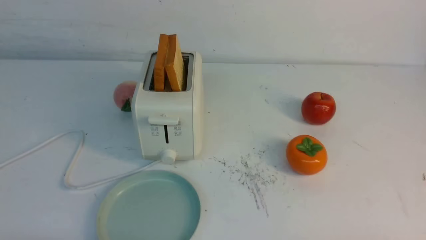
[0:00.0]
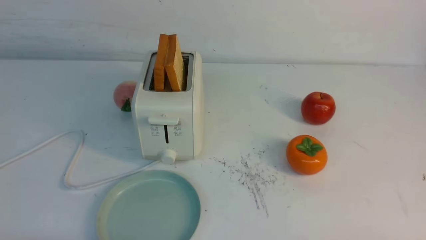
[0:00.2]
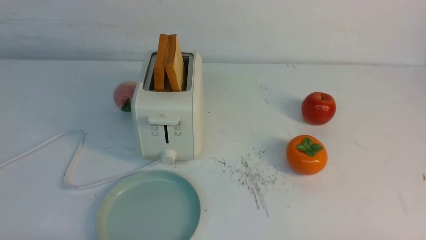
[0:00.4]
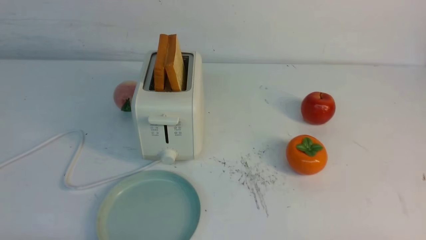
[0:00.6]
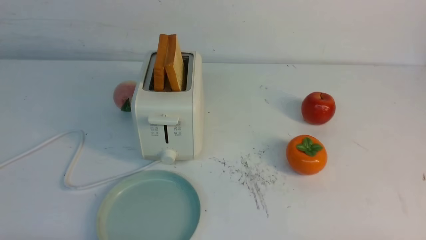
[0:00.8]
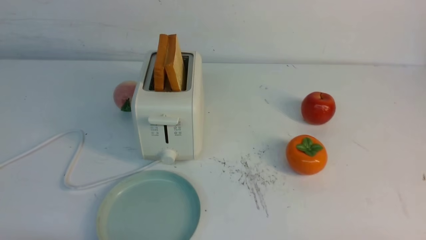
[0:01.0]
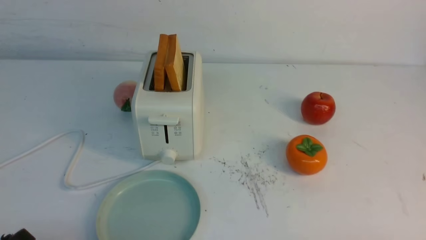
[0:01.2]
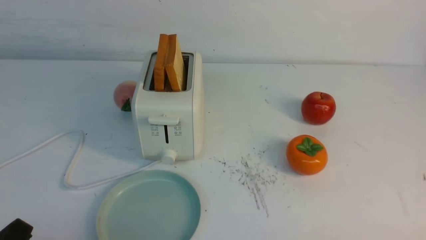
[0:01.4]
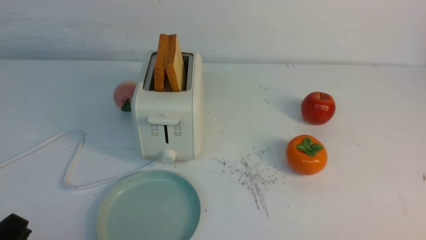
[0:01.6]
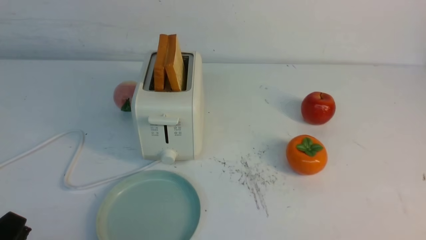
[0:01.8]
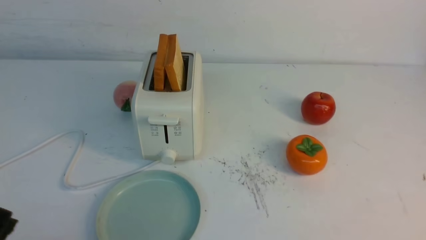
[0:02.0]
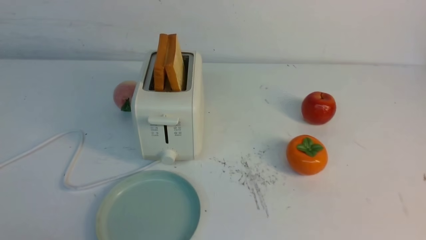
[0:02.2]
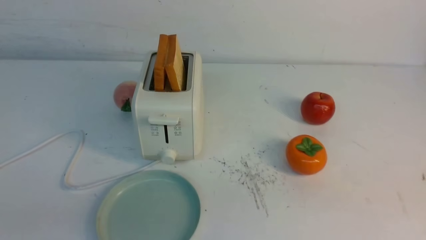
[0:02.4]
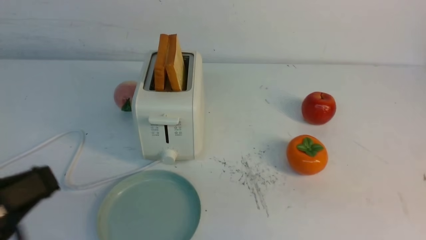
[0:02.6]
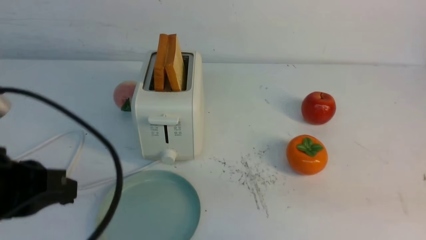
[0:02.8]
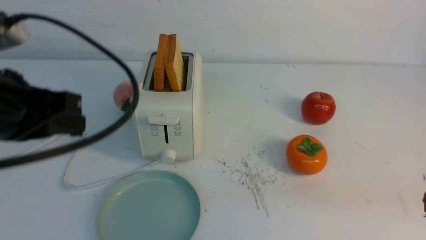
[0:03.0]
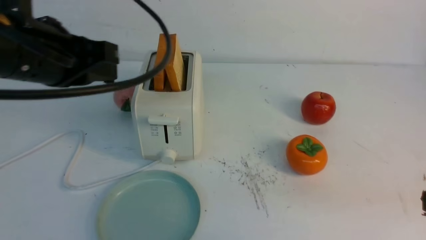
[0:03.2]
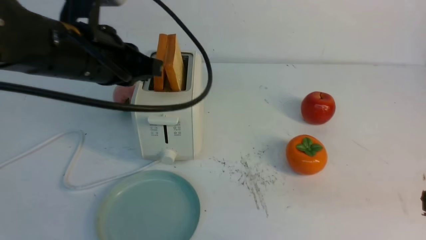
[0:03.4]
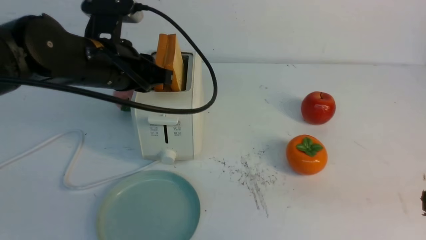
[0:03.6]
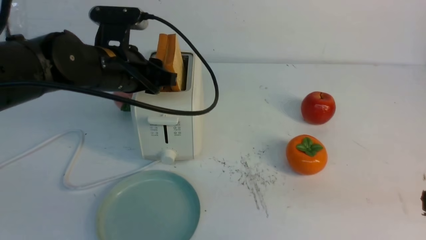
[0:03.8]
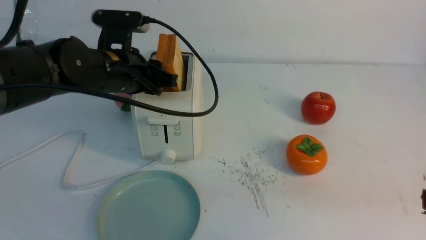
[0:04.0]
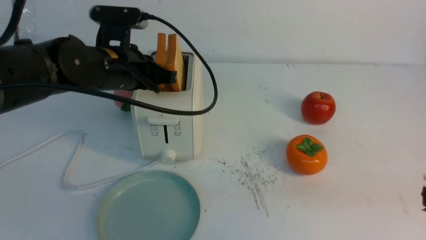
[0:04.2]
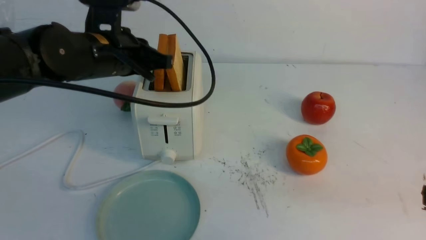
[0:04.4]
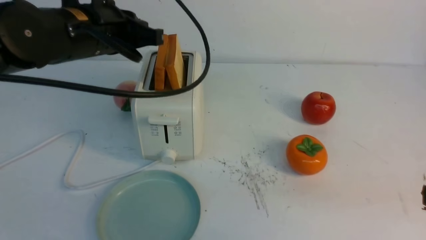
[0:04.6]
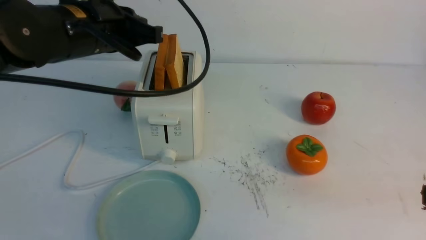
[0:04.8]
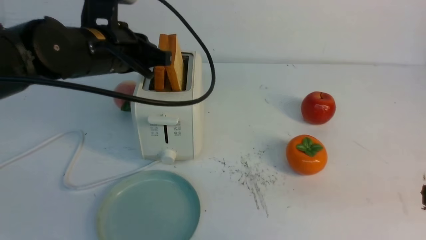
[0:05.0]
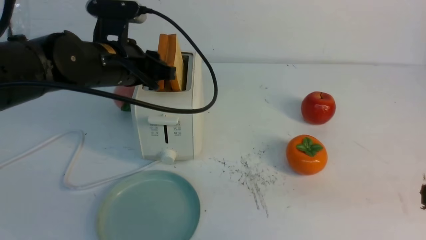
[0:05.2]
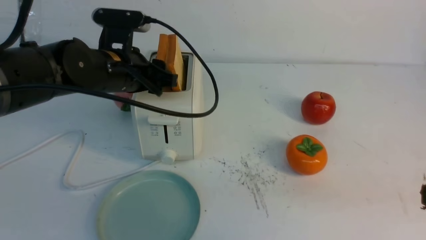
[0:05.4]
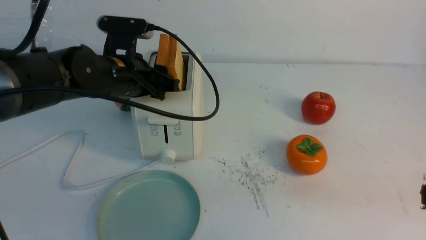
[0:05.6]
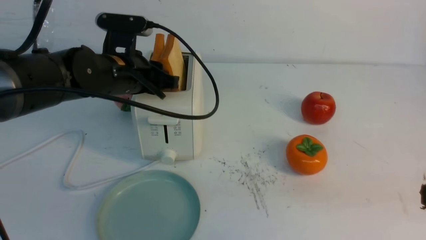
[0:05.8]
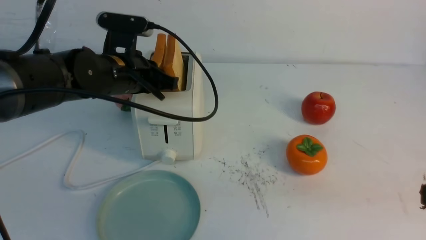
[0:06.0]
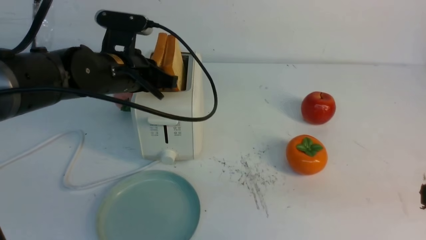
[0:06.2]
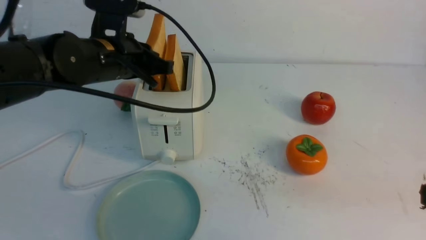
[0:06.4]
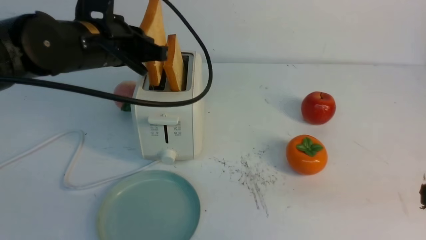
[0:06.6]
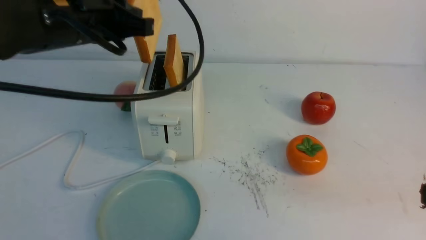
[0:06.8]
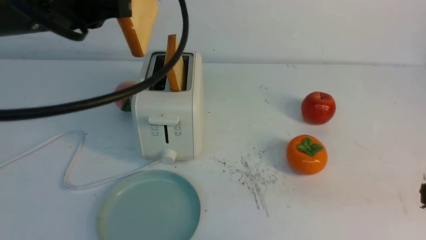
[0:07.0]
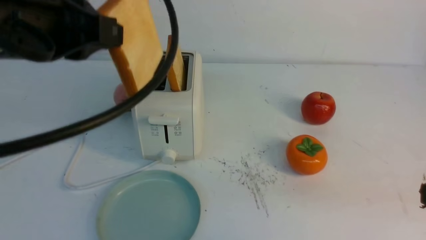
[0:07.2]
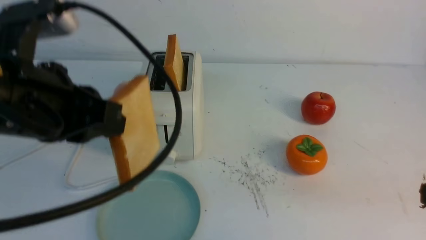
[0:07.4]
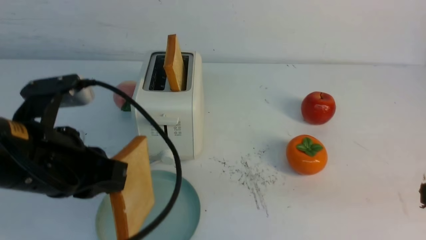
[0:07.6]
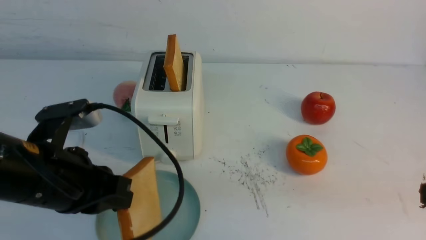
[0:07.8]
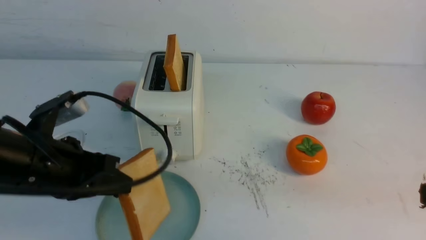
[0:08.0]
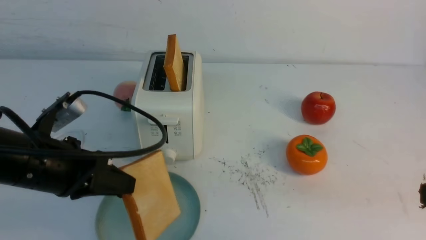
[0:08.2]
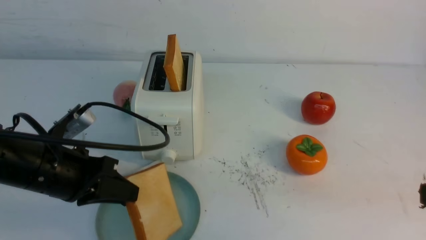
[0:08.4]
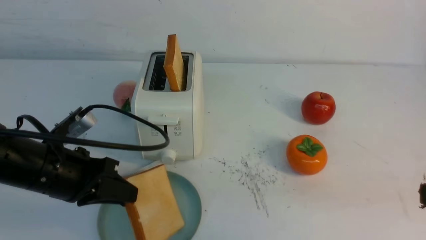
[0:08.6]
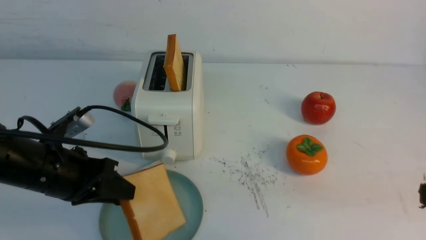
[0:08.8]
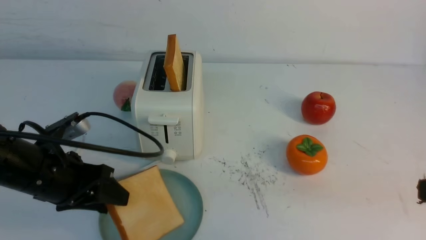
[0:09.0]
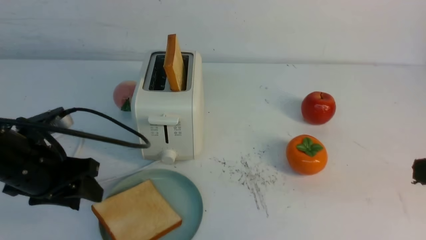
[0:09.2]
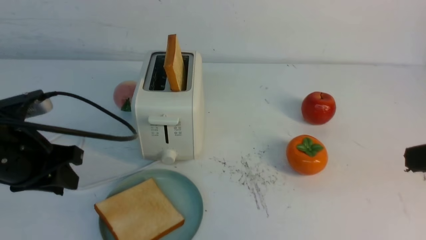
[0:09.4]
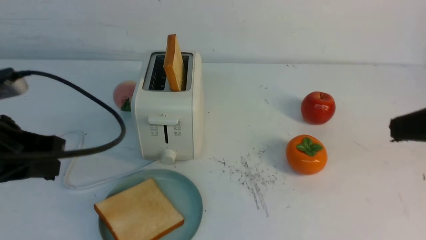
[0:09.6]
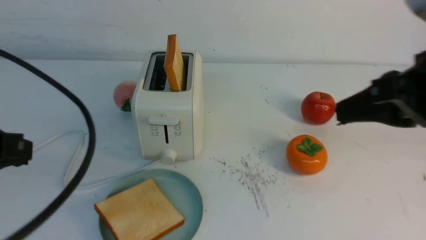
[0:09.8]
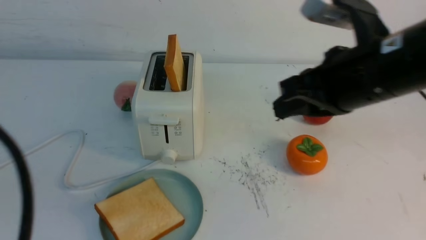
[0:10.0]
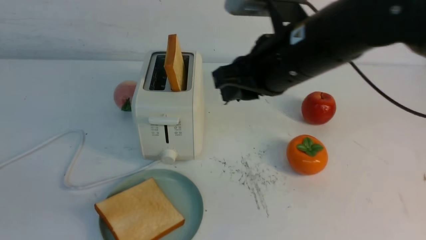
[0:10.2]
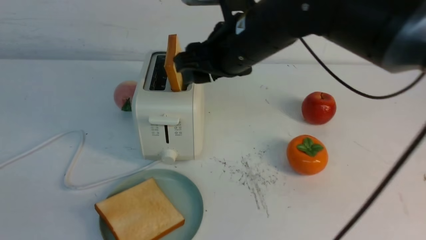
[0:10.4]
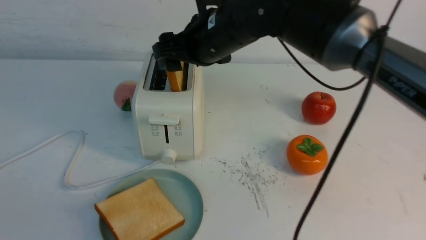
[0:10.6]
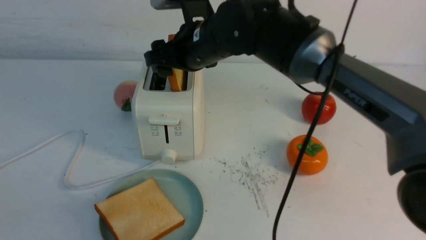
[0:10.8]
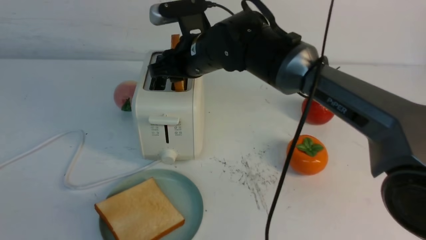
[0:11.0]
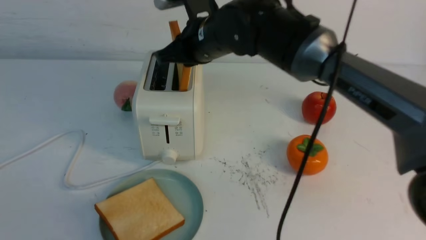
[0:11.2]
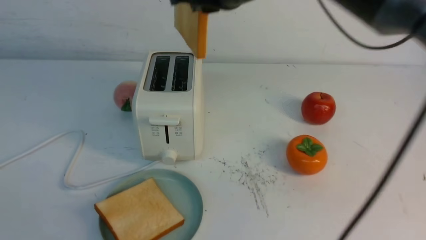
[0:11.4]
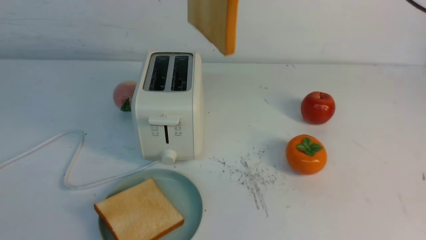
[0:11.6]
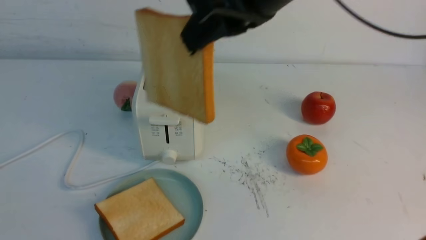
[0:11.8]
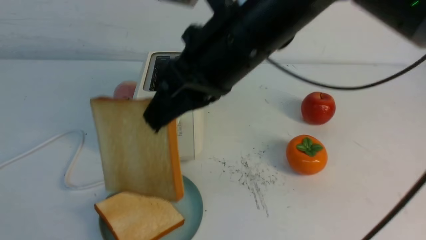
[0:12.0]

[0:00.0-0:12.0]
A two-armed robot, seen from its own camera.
Task of the whole recording: take toasted bread from bread machine on white table place on plate.
Step, 0:00.0 to 0:07.0: use the left arm to take out a slice of bread.
Step, 0:07.2 to 0:09.4: use the left arm to put a slice of bread into the empty plate.
Step, 0:09.6 to 0:11.2: use the right arm to take out a slice of bread.
0:01.6 to 0:03.0: The left gripper goes approximately 20 cm upward and forward, and closes its fingers.
0:03.0 to 0:04.4: The left gripper is displaced forward by approximately 20 cm, and opens, then closes again.
0:04.4 to 0:06.0: The left gripper opens up.
0:06.0 to 0:07.6: The left gripper goes roughly 20 cm backward.
0:07.6 to 0:09.0: The left gripper heads downward and forward, covering some 10 cm, and opens.
0:09.0 to 0:10.4: The left gripper heads backward and upward, covering about 30 cm, and closes its fingers; the right gripper goes roughly 30 cm to the left and forward, and opens its fingers.
0:10.4 to 0:12.0: The right gripper goes up and down, some 15 cm each way, reversing 2 times, and closes.

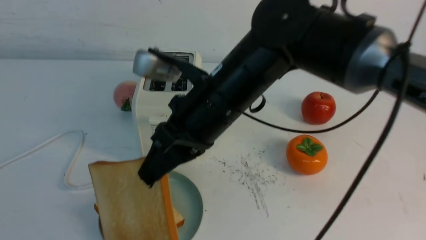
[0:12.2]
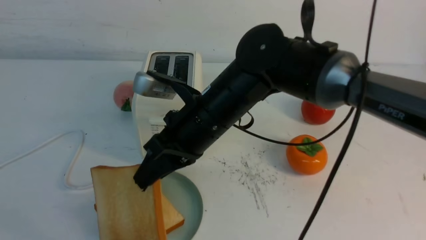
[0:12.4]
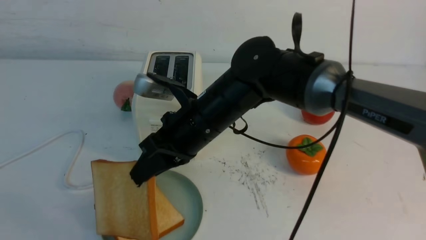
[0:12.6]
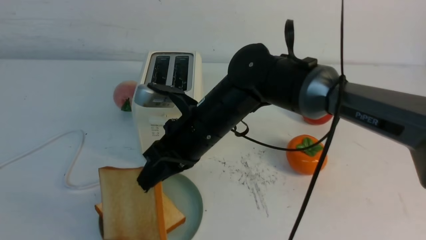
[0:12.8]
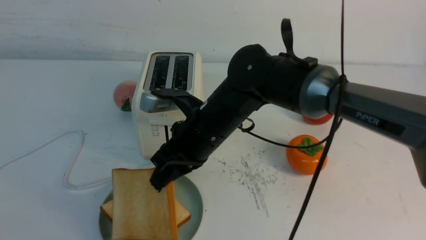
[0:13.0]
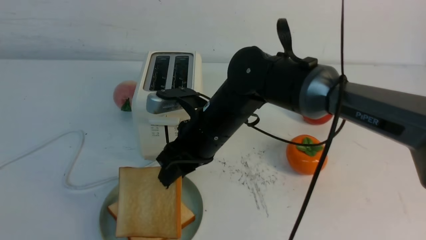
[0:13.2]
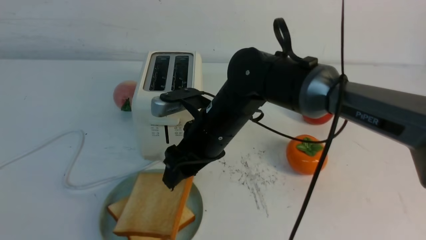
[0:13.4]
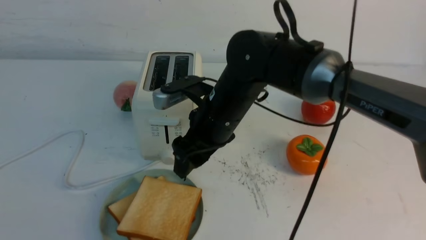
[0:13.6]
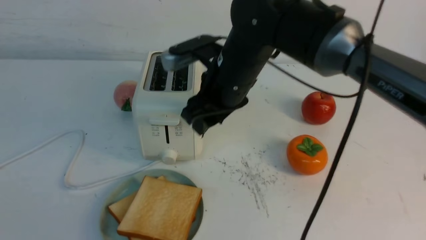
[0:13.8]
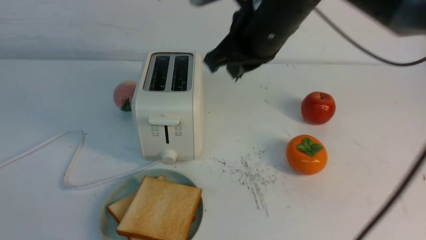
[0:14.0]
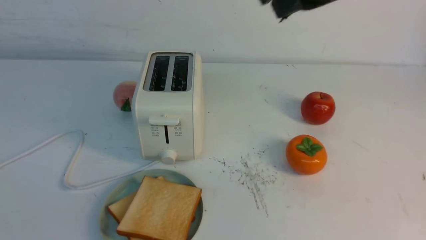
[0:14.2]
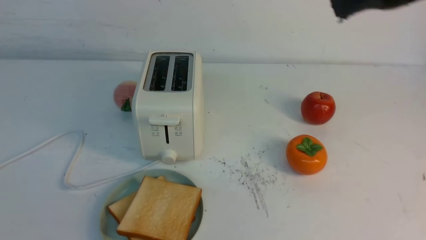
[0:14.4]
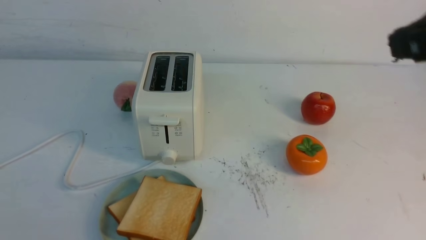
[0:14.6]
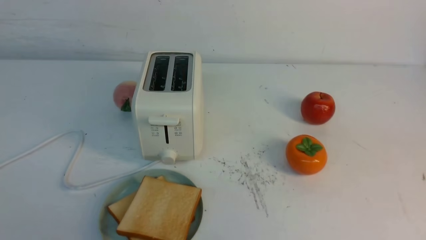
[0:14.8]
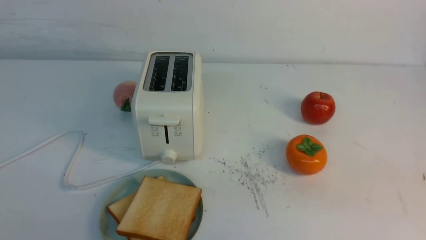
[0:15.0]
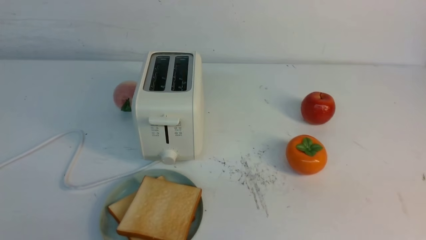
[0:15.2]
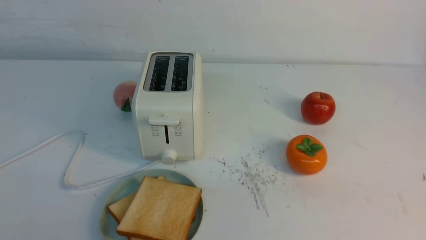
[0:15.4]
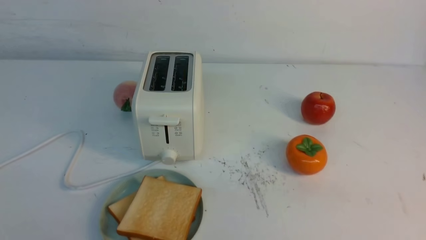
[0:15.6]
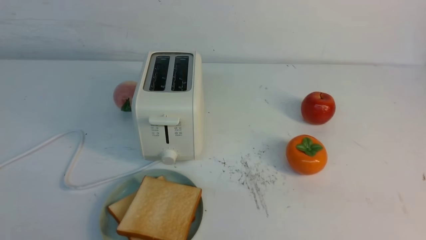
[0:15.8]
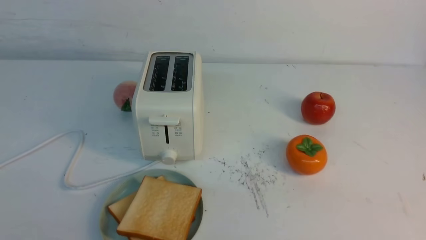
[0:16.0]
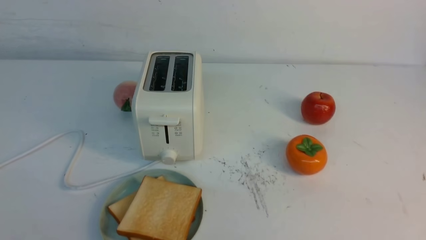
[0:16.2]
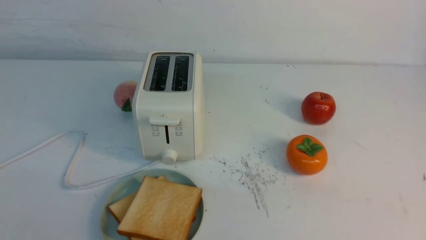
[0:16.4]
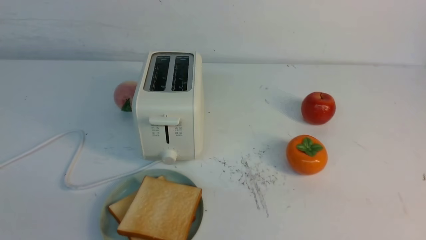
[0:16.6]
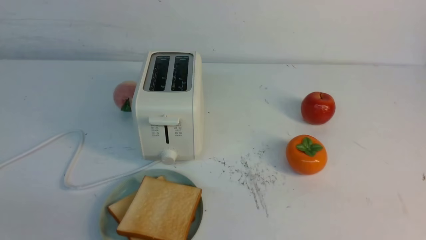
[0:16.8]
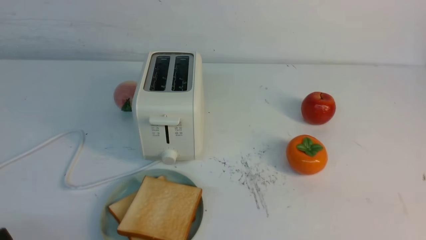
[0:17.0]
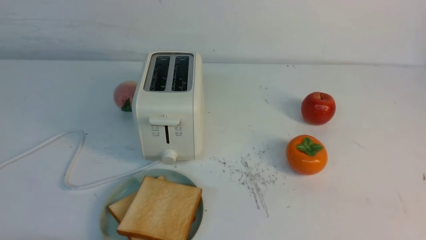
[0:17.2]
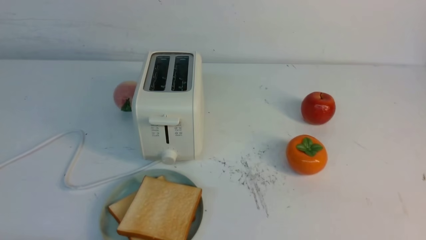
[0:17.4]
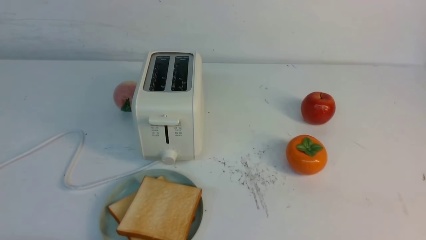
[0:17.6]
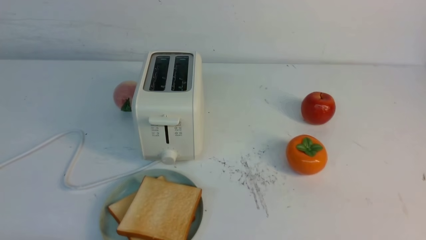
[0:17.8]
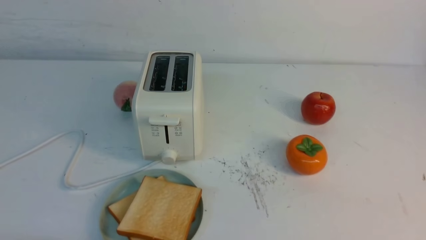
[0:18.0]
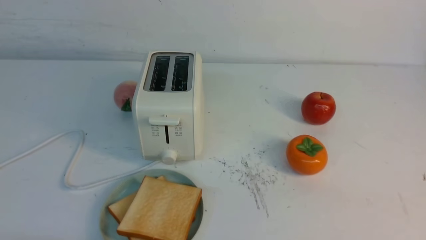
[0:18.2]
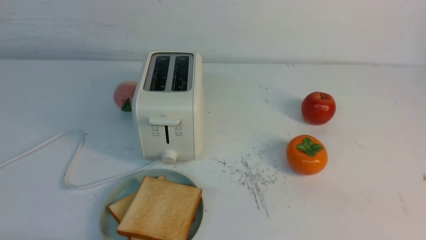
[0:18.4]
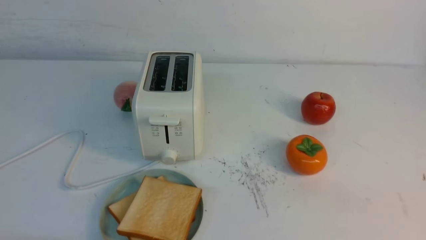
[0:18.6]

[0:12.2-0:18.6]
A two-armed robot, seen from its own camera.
Task of the whole recording: take toasted bread from bread machine on white table place on plate.
Step, 0:12.2 to 0:13.8: use the right arm to put a slice of bread into the plate.
0:12.2 to 0:13.8: The right gripper heads forward and downward, covering roughly 10 cm, and opens.
0:13.8 to 0:15.4: The left gripper moves about 5 cm, while the right gripper shifts roughly 40 cm backward and to the right, and closes up.
